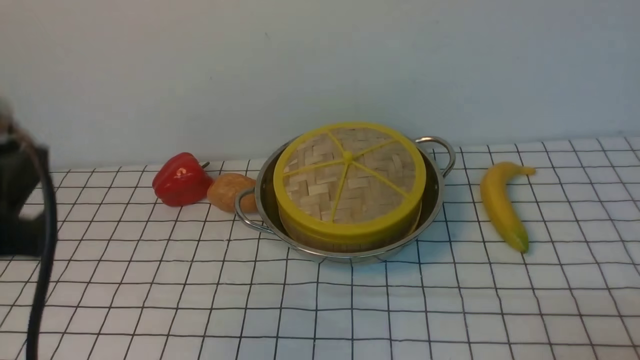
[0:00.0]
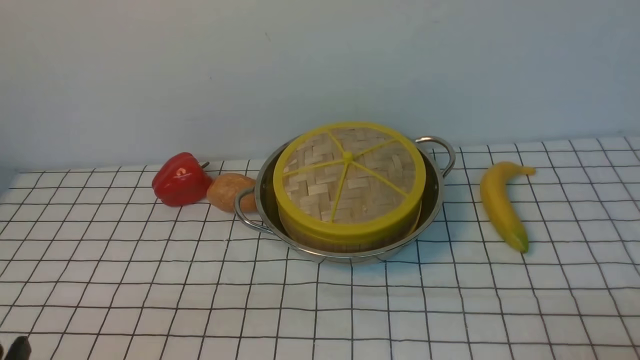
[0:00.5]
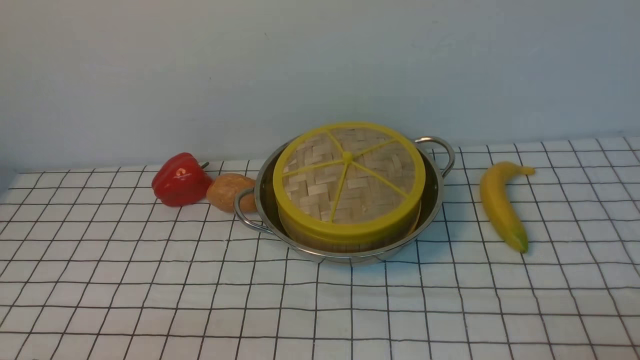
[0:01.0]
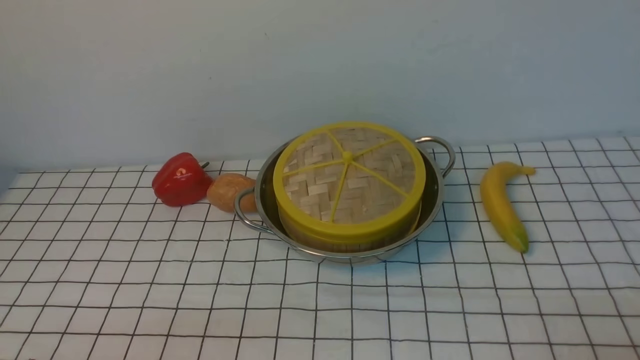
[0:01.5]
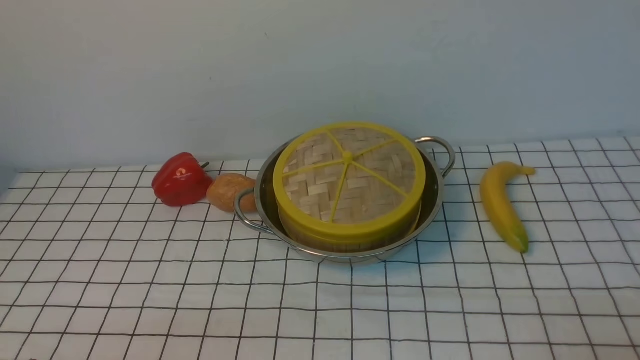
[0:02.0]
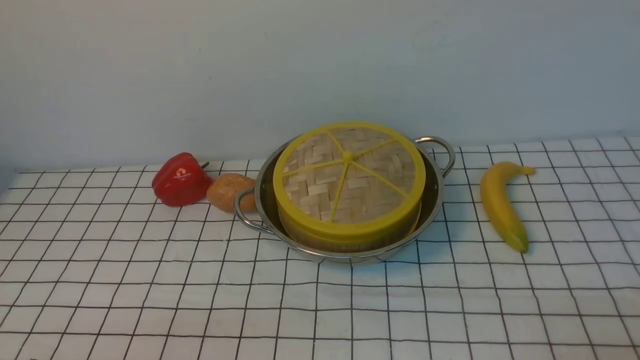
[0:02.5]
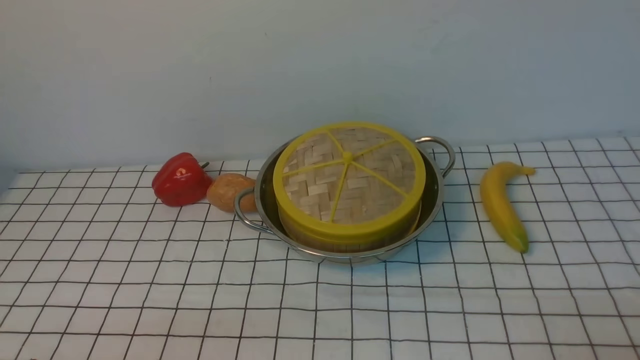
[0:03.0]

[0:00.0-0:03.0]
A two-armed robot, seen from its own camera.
Task of the whole recording: place the steamer in the pot on the white tablecloth, and put the lid on the steamer.
0:00.0 to 0:01.5: The left gripper travels downward and backward by approximately 20 cm.
0:01.5 to 0:03.0: Both grippers stay put.
